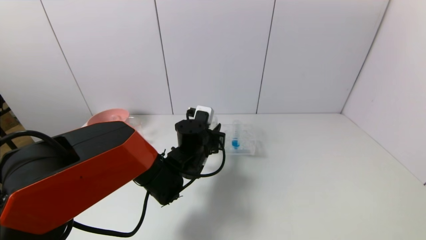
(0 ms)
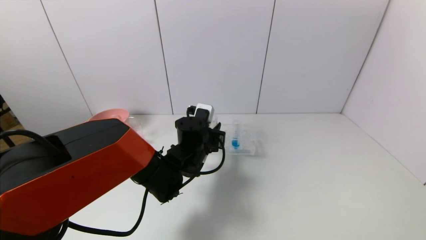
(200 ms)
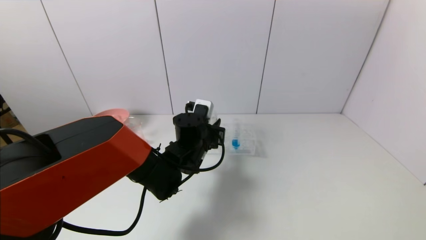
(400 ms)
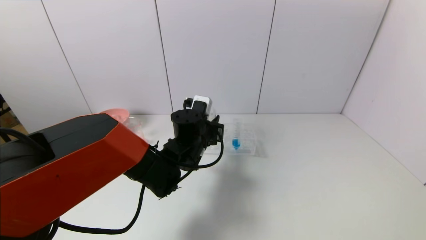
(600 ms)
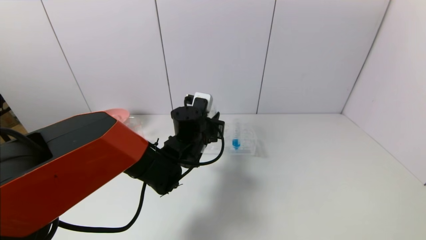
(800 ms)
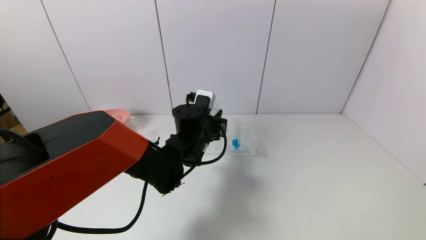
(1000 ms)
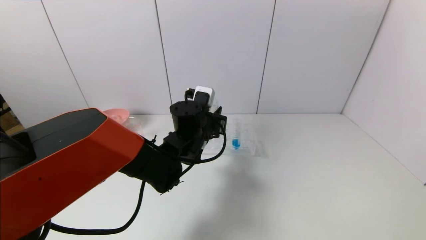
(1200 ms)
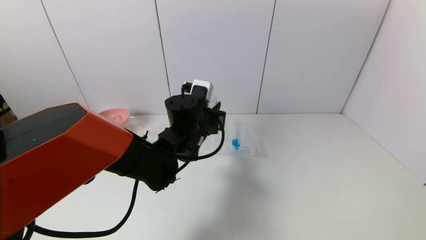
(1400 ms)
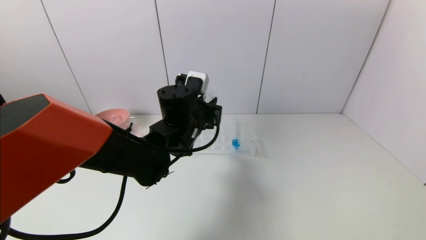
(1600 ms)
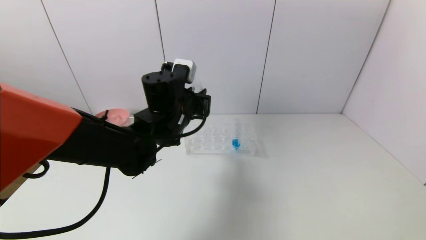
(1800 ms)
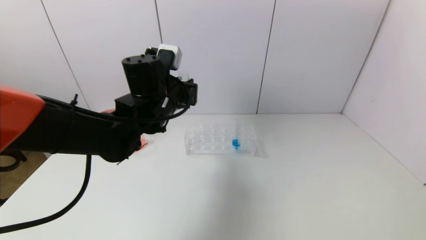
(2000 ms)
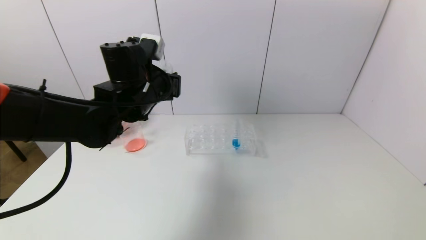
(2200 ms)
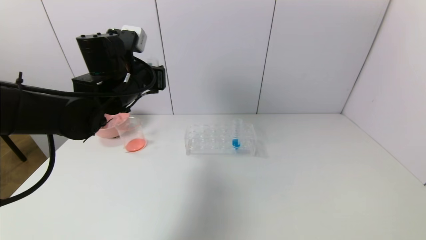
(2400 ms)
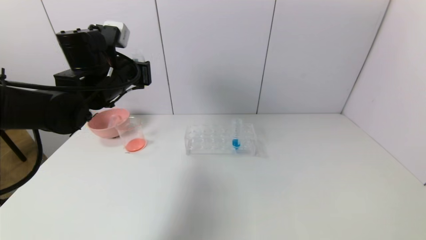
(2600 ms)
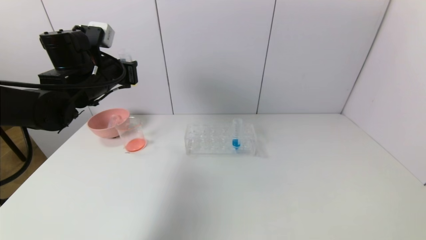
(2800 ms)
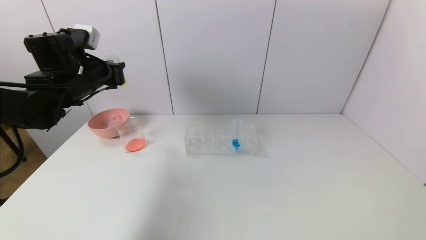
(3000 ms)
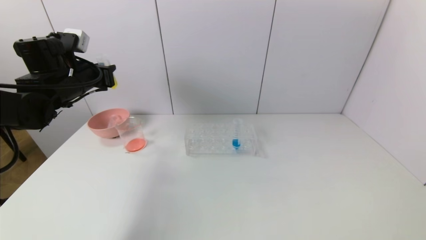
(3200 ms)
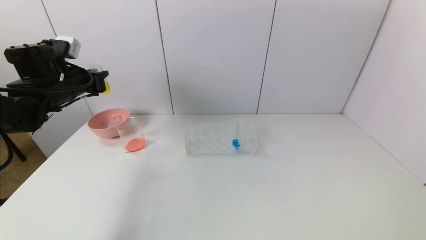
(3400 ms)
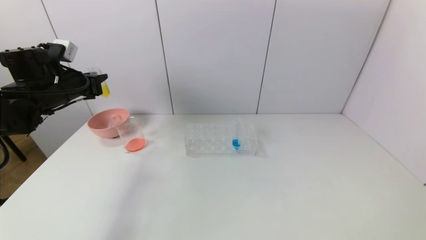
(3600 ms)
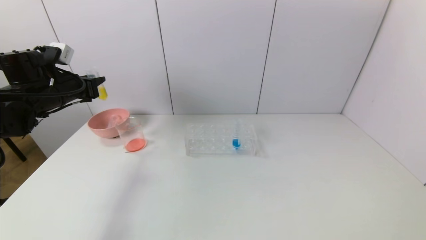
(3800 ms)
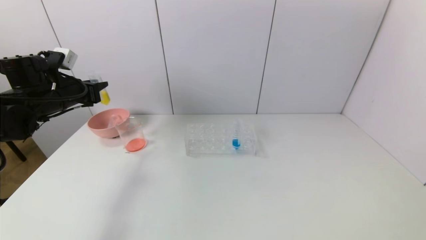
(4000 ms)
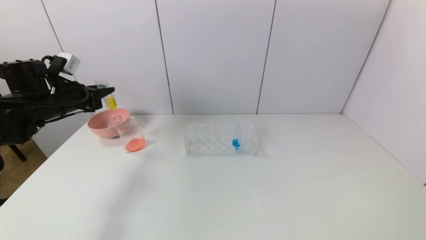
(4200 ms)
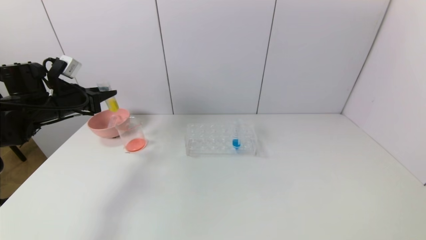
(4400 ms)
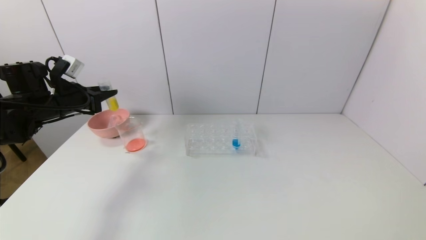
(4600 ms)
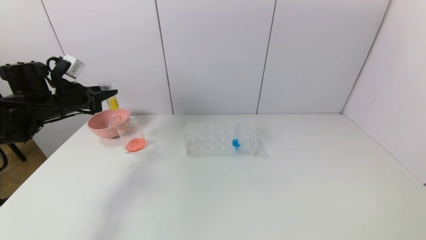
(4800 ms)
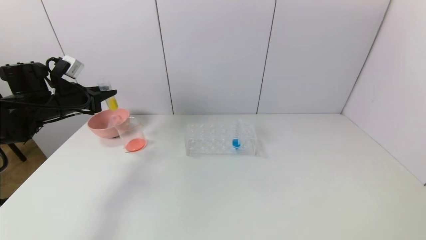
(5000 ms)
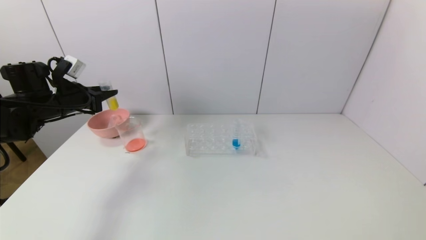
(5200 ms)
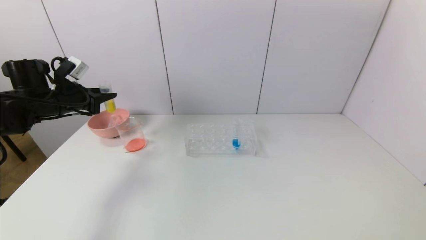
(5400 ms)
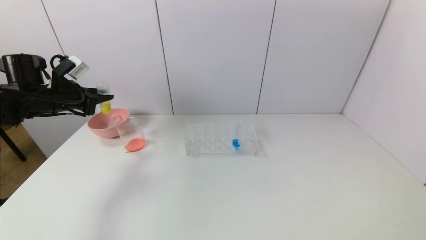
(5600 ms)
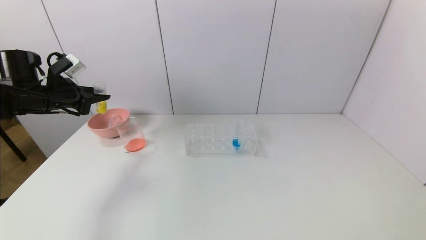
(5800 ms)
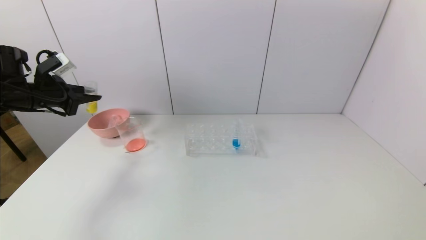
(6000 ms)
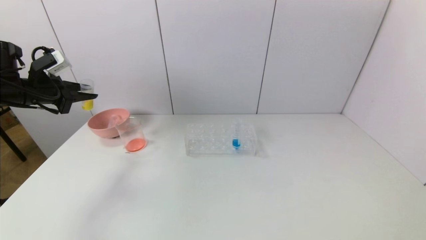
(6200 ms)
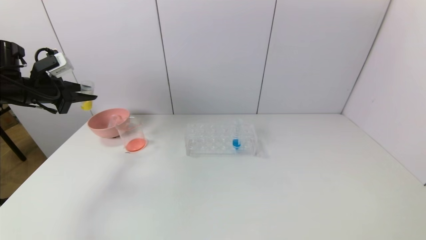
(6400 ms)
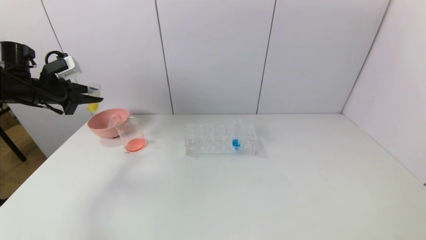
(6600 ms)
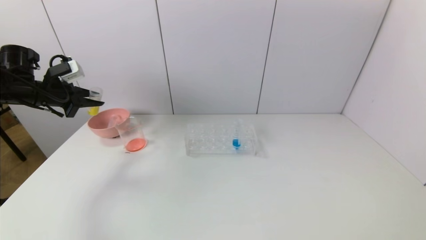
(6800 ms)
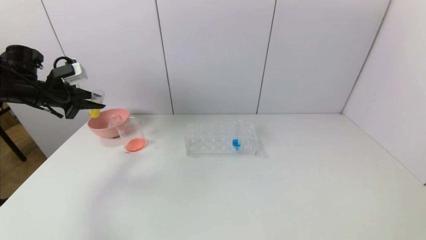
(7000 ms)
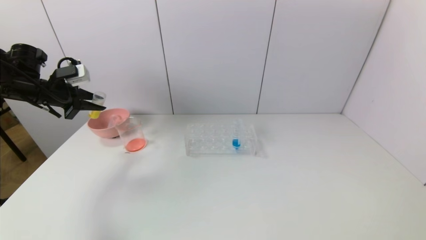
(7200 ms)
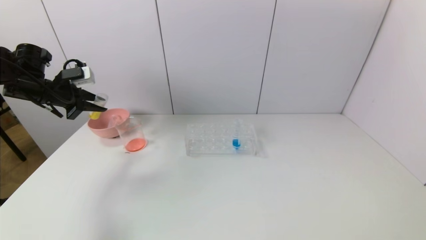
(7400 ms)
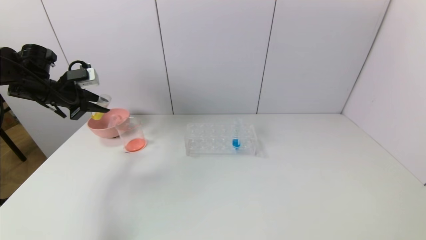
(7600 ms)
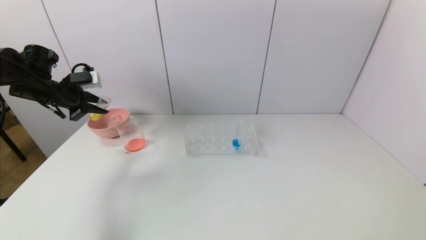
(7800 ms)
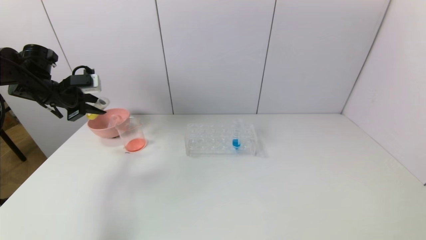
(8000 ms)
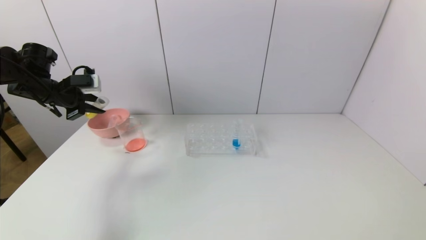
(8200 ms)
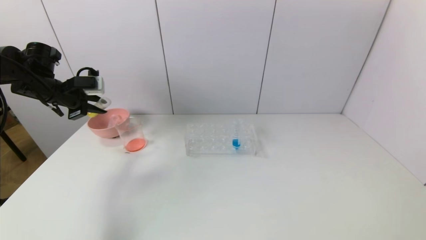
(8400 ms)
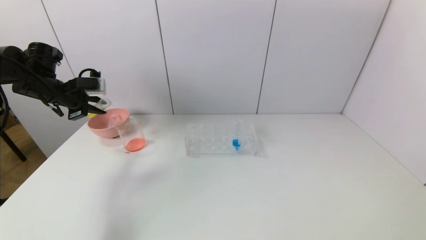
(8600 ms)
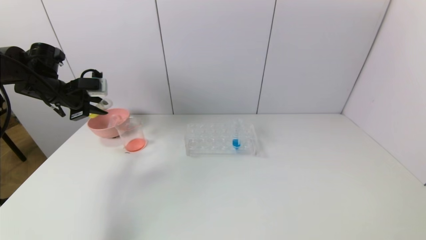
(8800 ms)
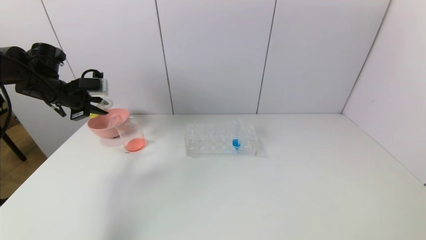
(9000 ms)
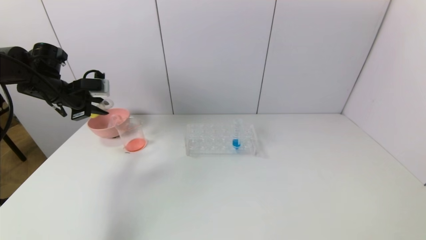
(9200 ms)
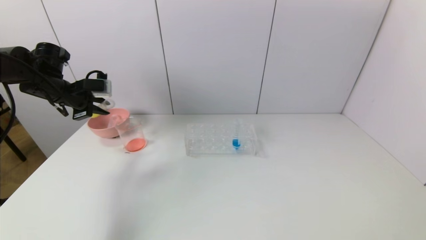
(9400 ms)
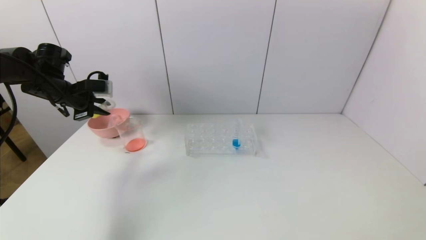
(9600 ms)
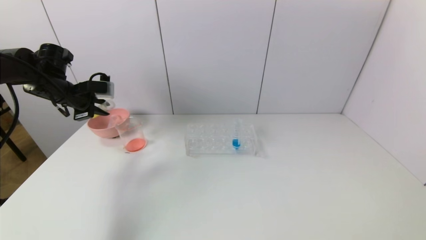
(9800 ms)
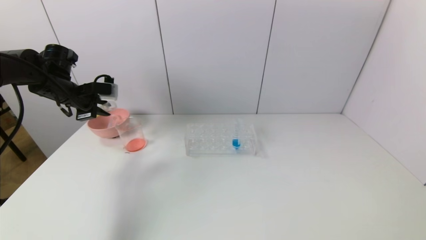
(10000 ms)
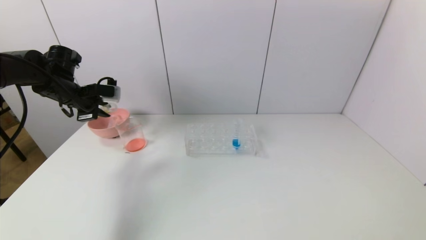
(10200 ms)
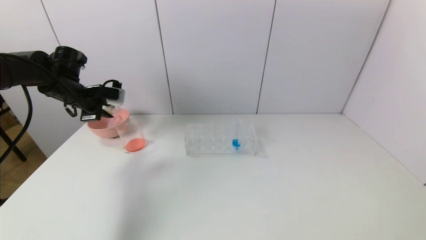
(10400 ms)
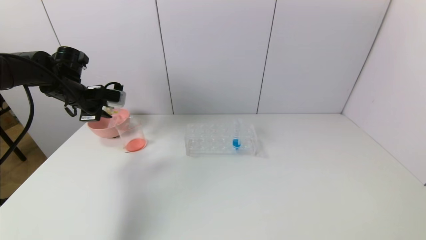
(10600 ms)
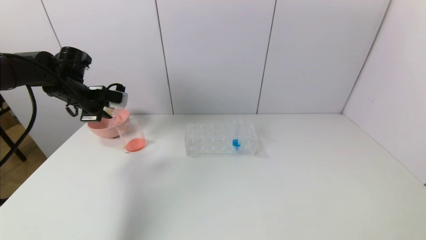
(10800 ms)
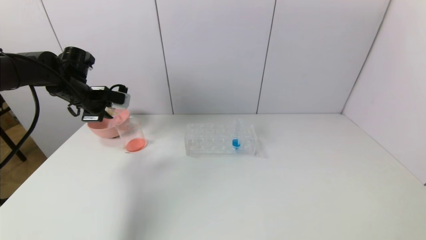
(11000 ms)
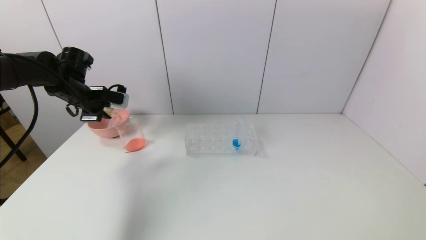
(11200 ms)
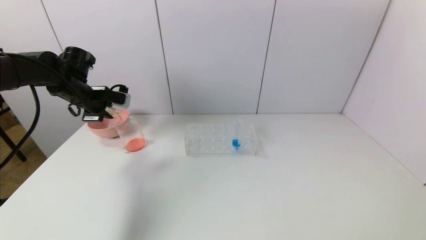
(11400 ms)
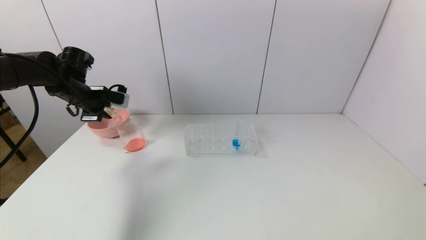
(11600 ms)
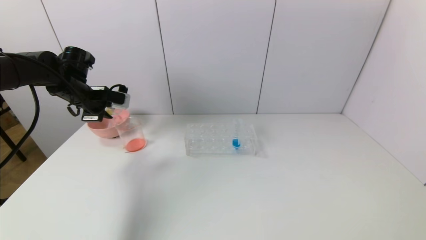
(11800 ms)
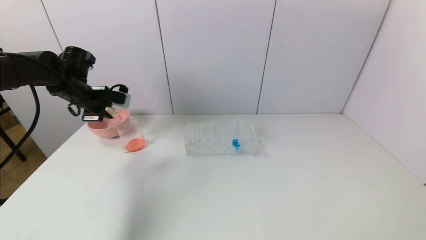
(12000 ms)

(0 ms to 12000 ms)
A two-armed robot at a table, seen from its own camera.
Task of the whole recording: pick up the test tube with yellow pigment and the test tube with red pigment by grippers and pour them into the beaker.
0 ms - 1600 ms: The left gripper goes approximately 10 cm upward.
1600 ms - 3000 ms: The left gripper moves to the left, roughly 20 cm.
3000 ms - 4400 ms: The left gripper heads to the left and downward, covering roughly 10 cm.
4400 ms - 6000 ms: The left gripper moves about 5 cm.
7600 ms - 9000 ms: The grippers stay close to where they were, moving slightly.
9000 ms - 12000 ms: The grippers make only small movements.

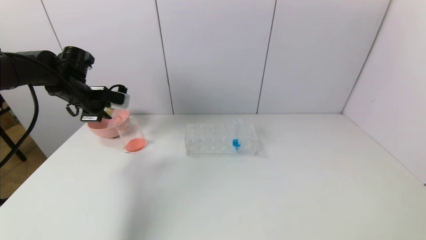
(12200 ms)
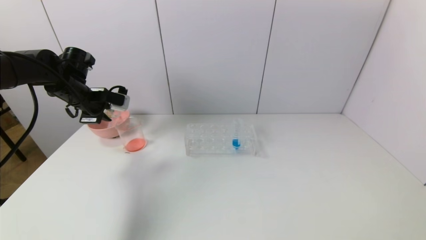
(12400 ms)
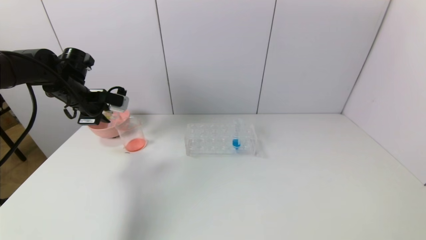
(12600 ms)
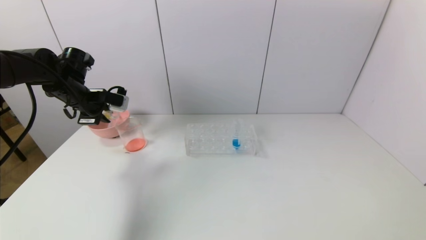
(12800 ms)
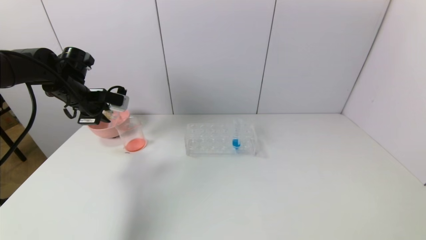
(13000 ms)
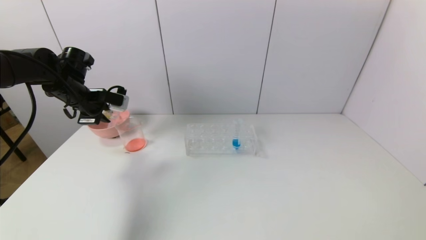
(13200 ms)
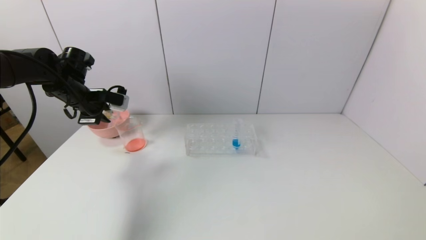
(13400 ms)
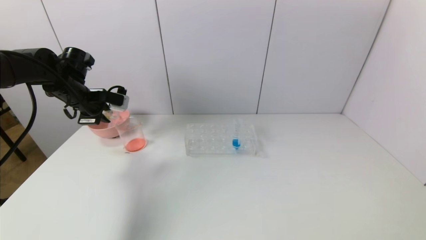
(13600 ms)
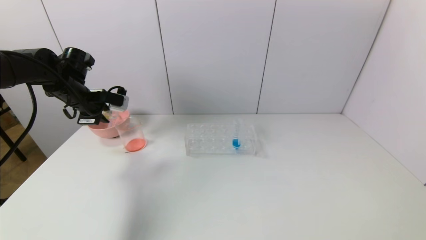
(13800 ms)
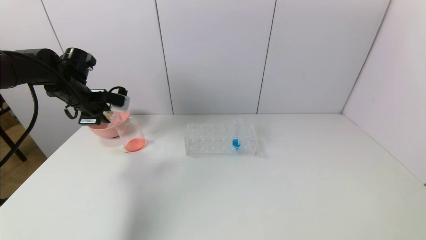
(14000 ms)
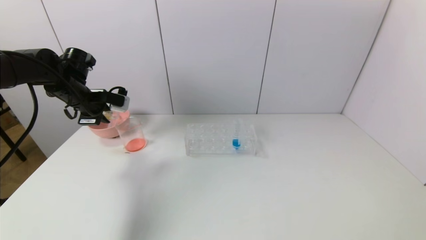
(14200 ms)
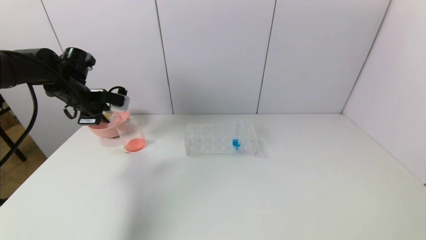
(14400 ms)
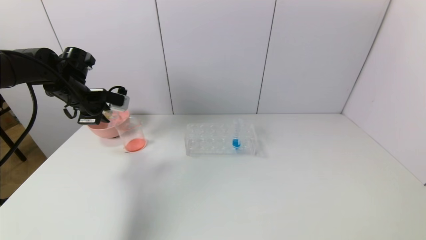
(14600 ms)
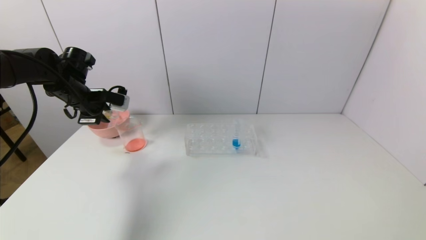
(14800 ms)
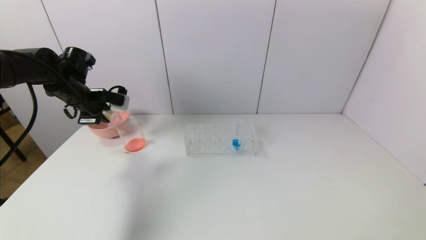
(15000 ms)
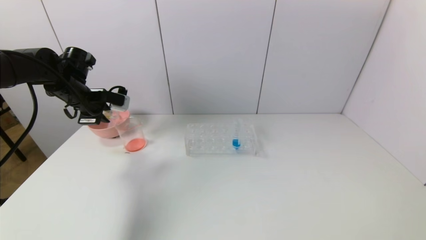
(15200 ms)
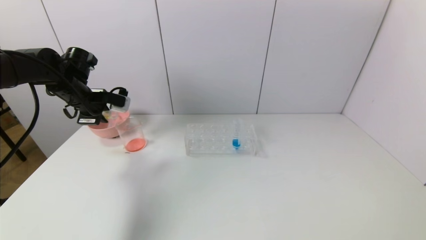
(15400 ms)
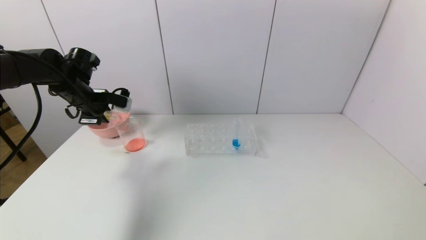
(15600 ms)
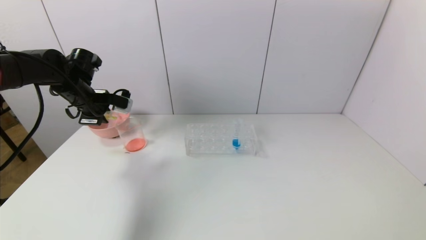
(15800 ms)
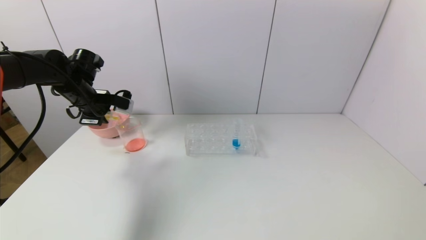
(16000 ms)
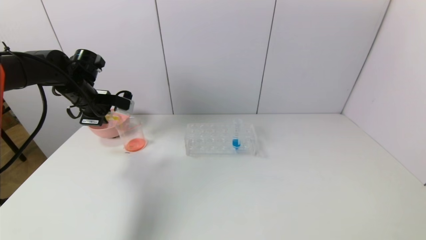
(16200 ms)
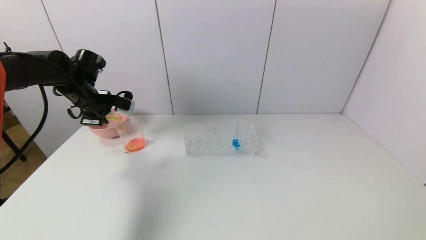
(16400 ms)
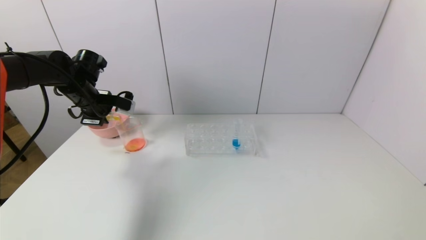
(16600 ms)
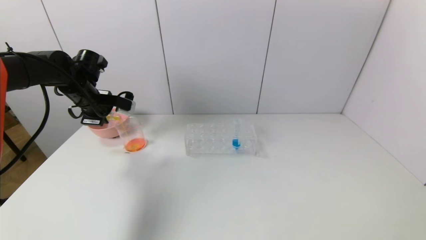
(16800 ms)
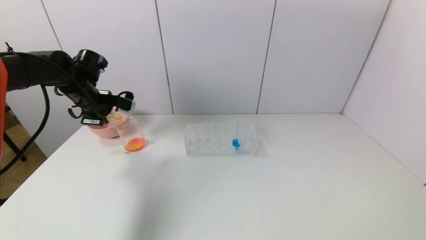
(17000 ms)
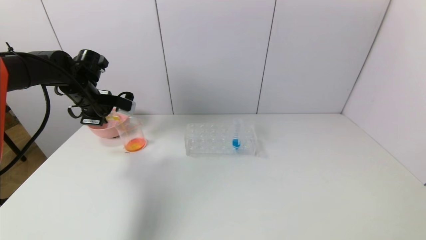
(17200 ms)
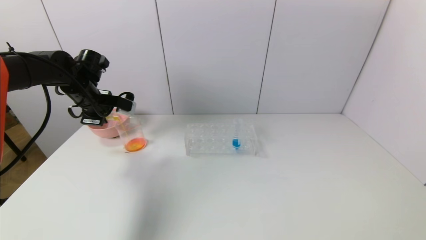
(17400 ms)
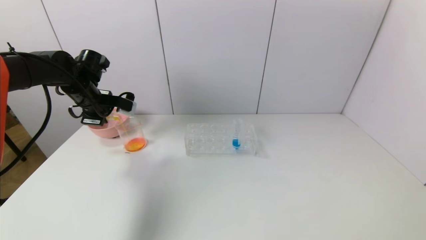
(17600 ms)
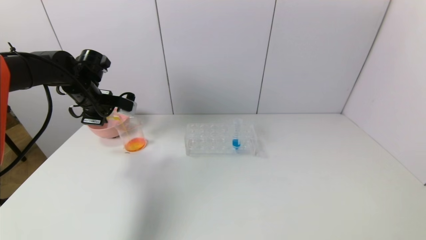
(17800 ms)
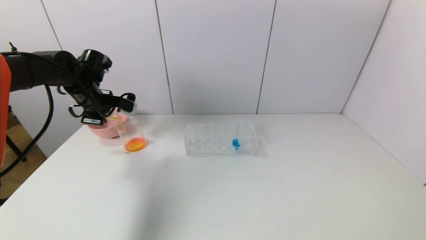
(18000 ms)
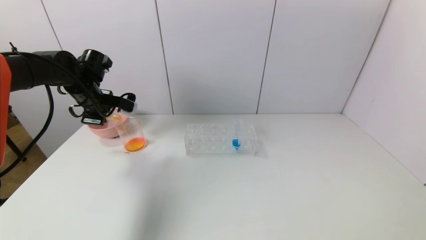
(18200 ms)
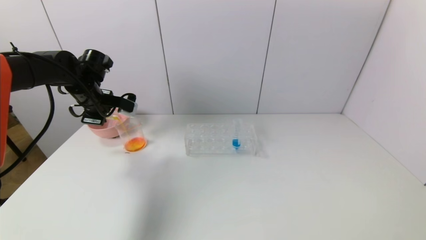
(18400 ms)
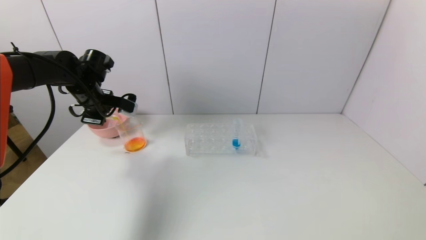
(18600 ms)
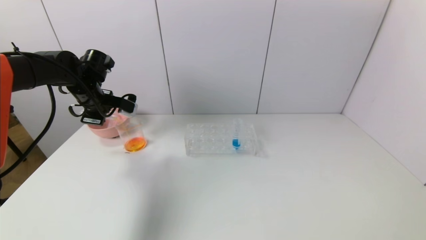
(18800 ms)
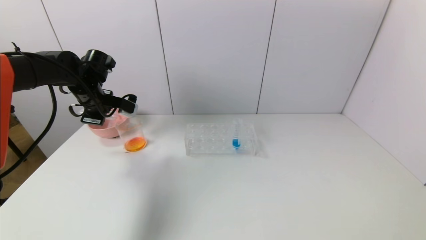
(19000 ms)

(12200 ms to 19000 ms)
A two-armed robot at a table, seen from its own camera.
Task of the whole recording: pick up the test tube with yellow pigment and the test tube with red pigment by grippers and pour them into the beaker.
12200 ms - 15000 ms: The two grippers keep their place.
15000 ms - 16200 ms: The grippers stay close to where they were, moving slightly.
16200 ms - 17600 ms: Both grippers stay about where they are.
17600 ms - 19000 ms: The grippers make only small movements.
